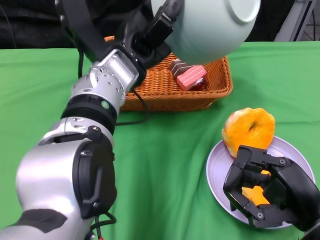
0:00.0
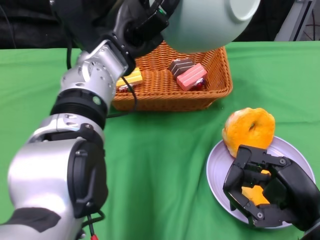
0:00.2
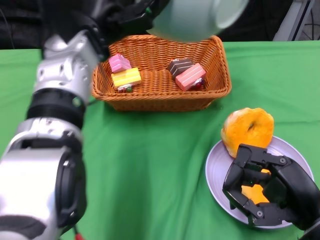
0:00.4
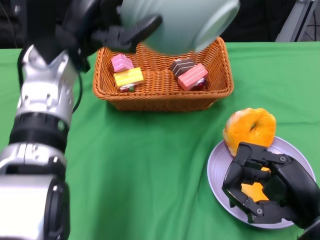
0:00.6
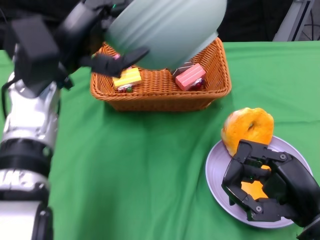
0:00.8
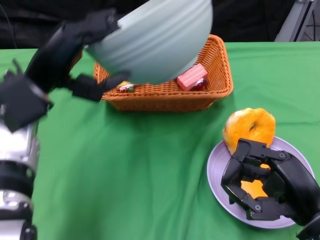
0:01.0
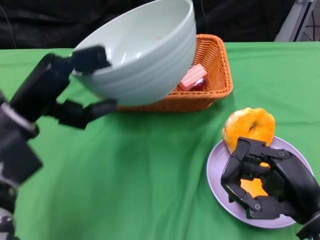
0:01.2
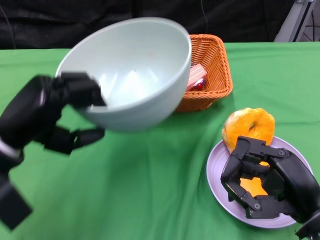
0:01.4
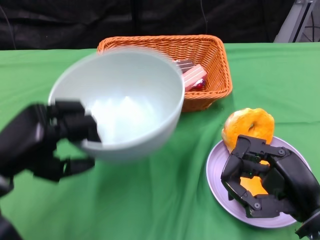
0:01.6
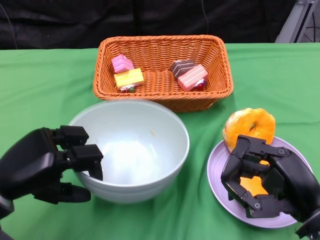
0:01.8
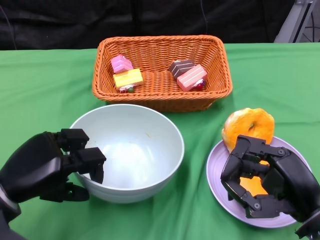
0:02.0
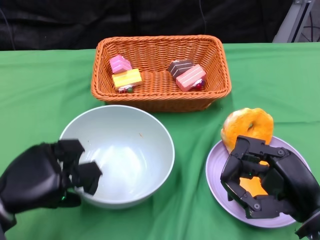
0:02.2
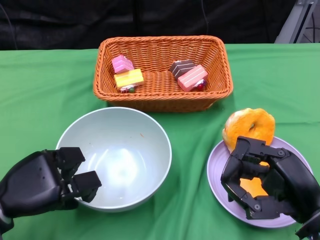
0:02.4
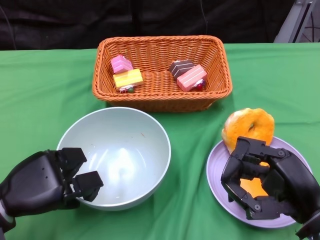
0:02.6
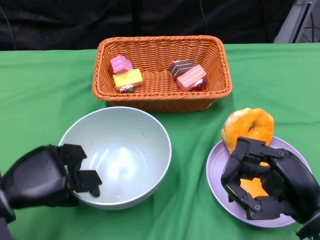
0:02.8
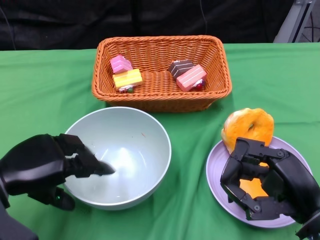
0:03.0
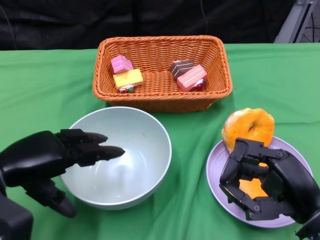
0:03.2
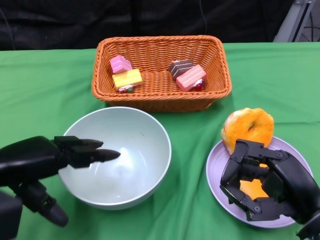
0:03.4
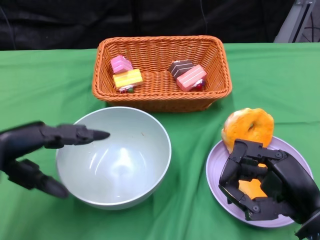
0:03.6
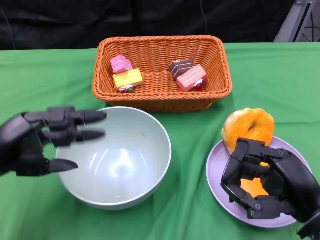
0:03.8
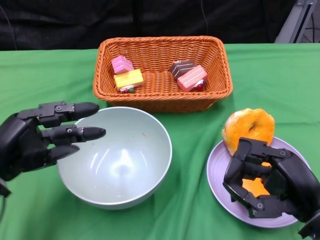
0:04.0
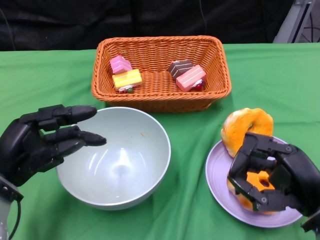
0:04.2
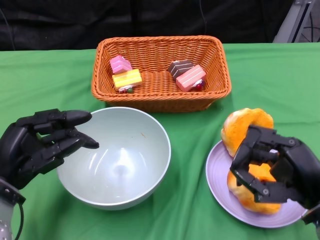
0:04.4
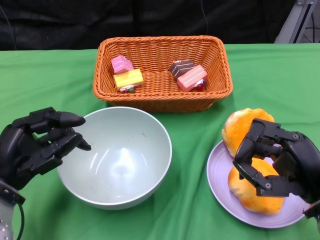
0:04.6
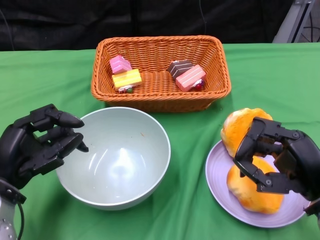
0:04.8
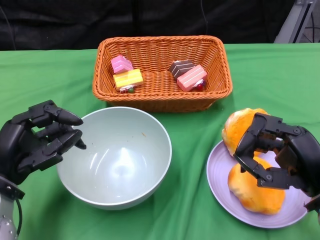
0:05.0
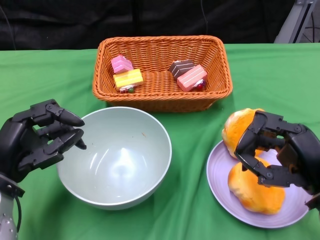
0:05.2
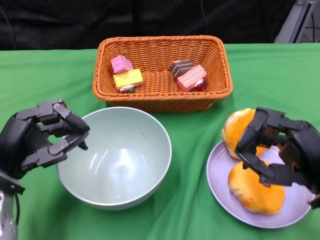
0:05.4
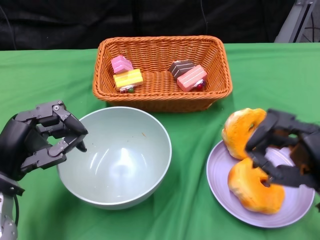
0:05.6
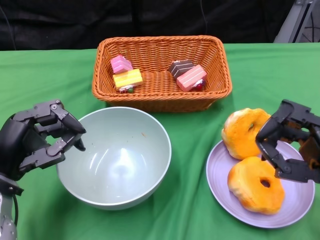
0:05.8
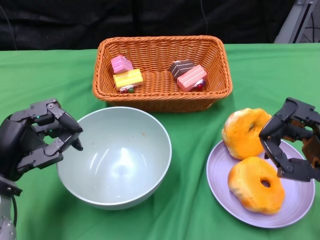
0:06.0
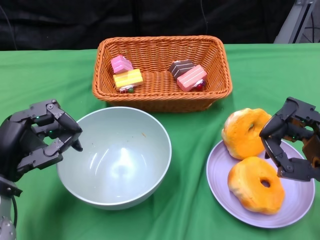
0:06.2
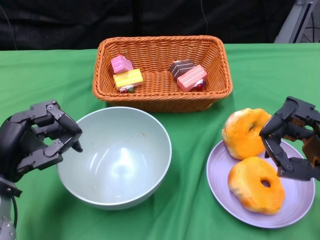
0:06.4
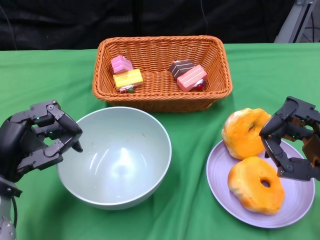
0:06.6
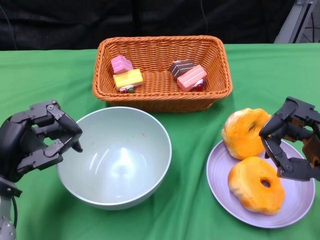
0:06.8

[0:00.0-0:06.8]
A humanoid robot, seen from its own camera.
Step, 0:00.6 to 0:02.8: Place the bowl on the table with the left gripper.
0:00.0 to 0:01.4: The left hand travels to the left and backward by approximately 20 cm.
0:01.4 to 0:02.8: The left hand is displaced downward by about 10 cm.
0:05.4 to 0:06.8: There are only small adjustments of the hands.
